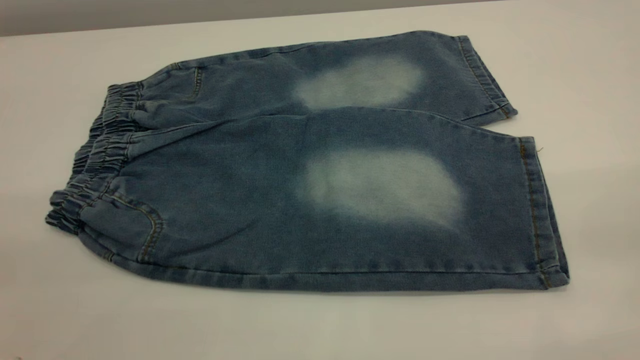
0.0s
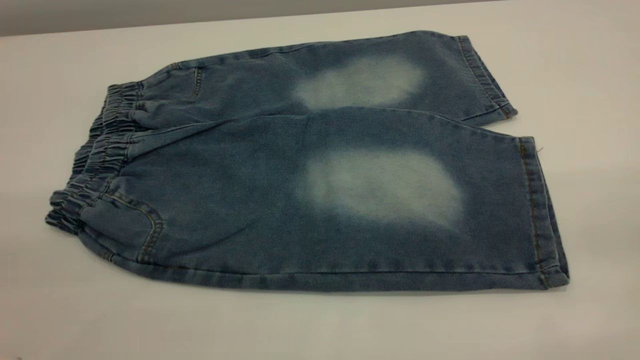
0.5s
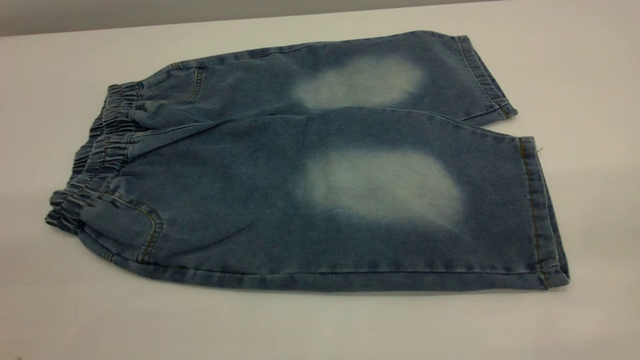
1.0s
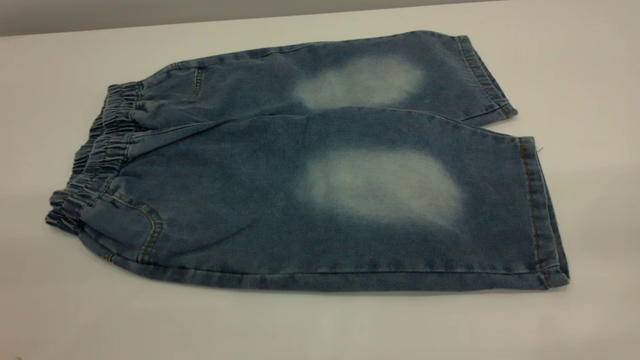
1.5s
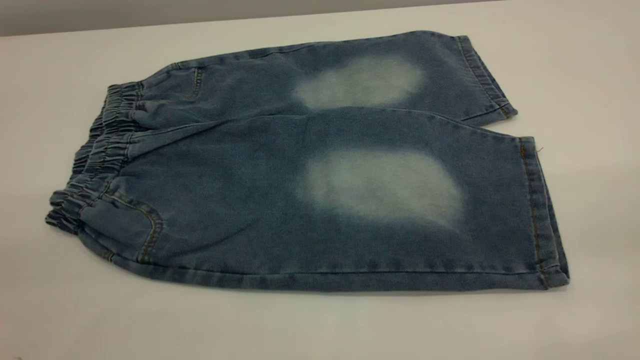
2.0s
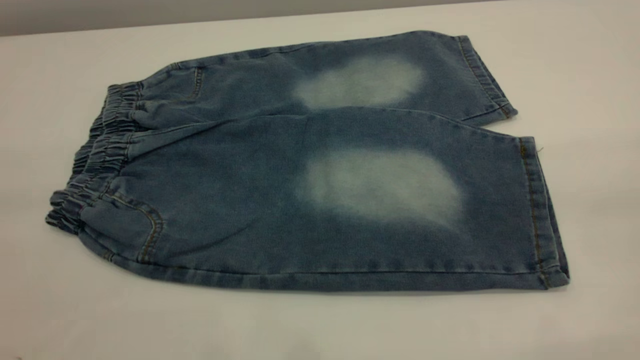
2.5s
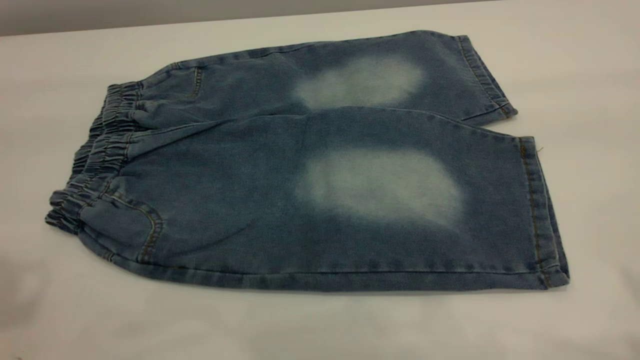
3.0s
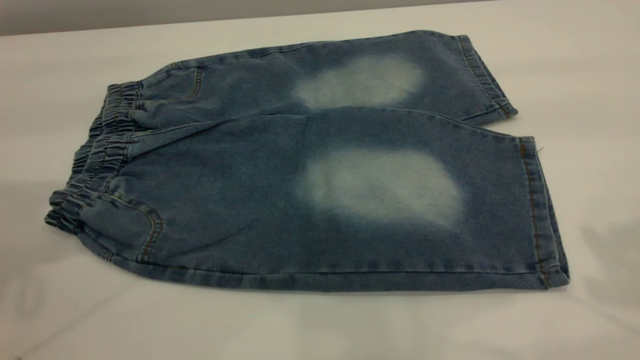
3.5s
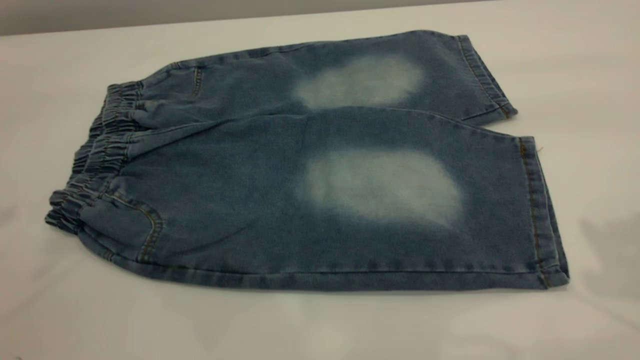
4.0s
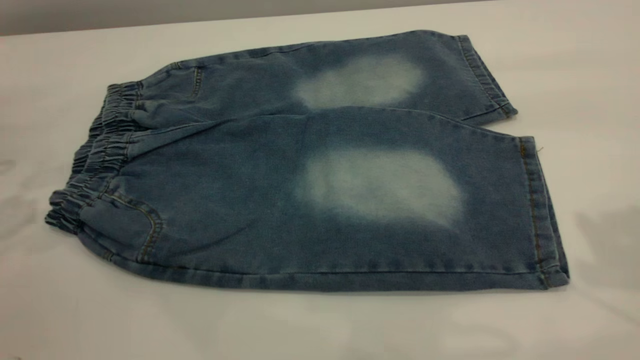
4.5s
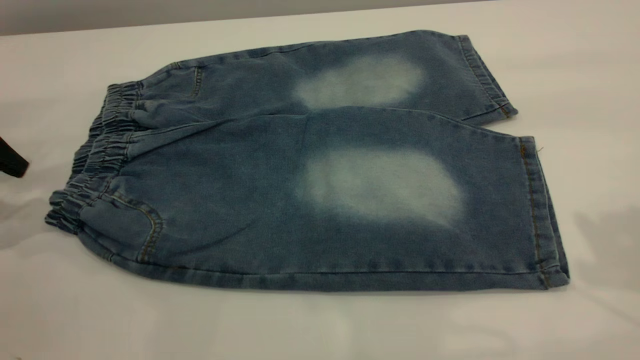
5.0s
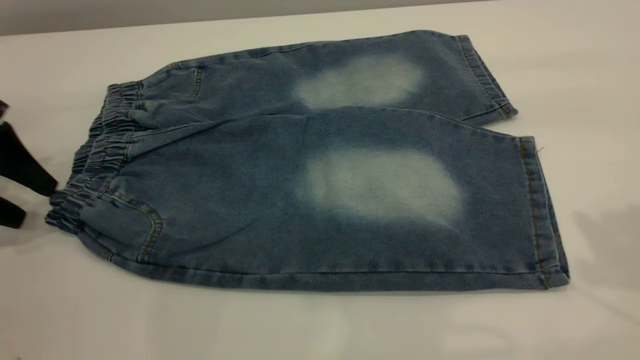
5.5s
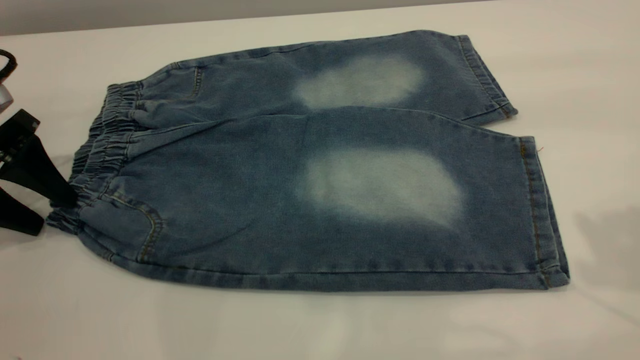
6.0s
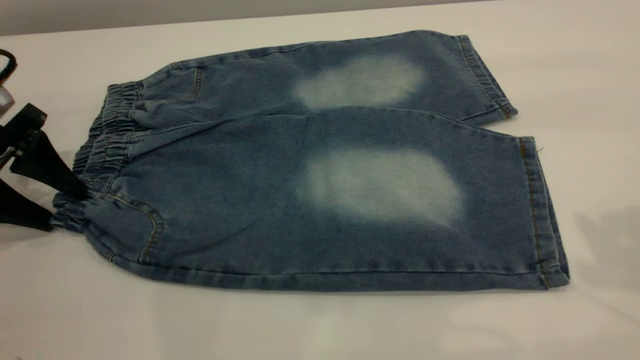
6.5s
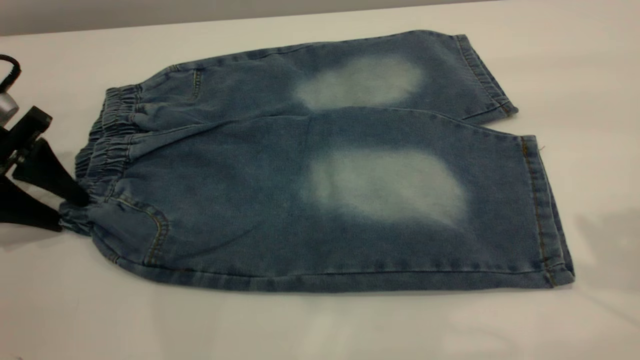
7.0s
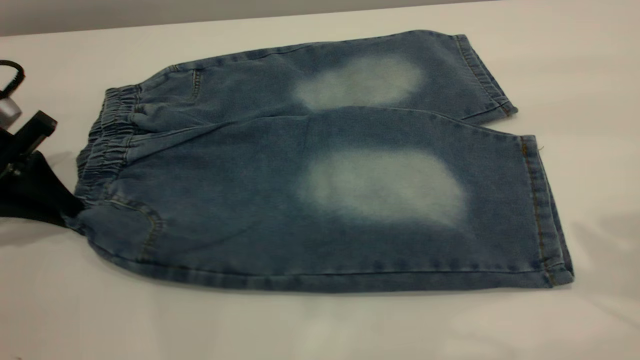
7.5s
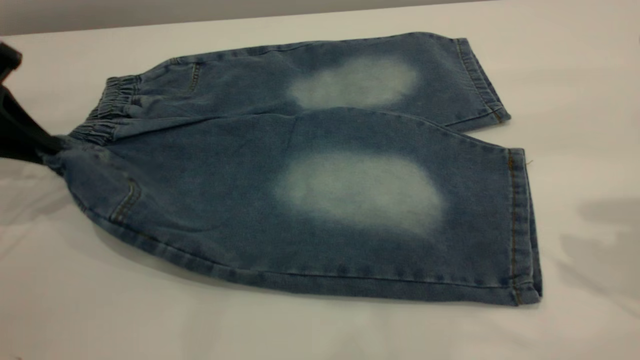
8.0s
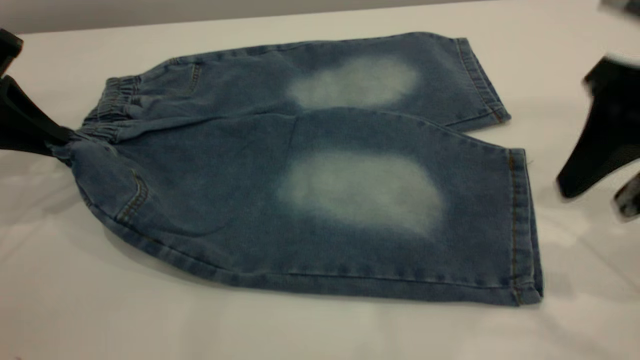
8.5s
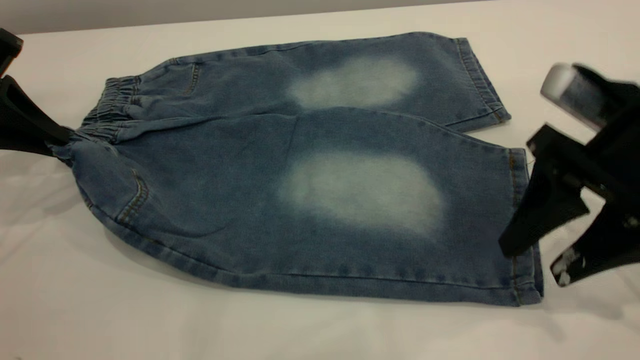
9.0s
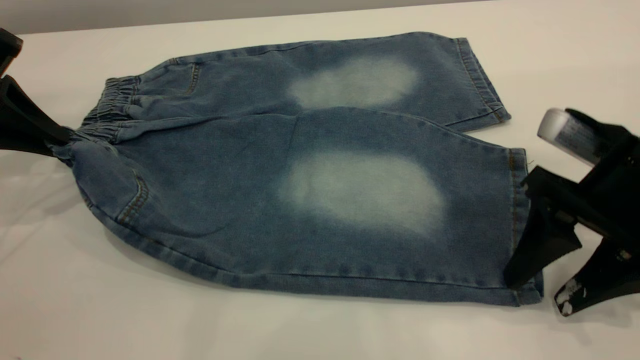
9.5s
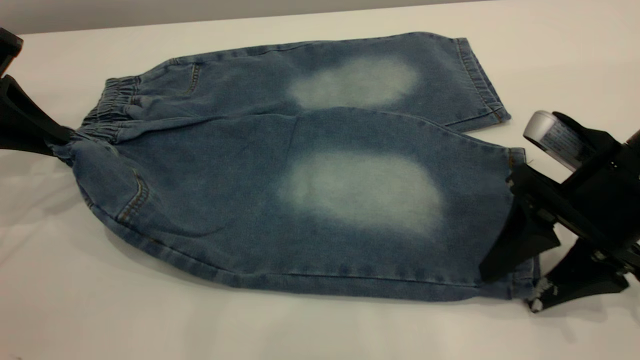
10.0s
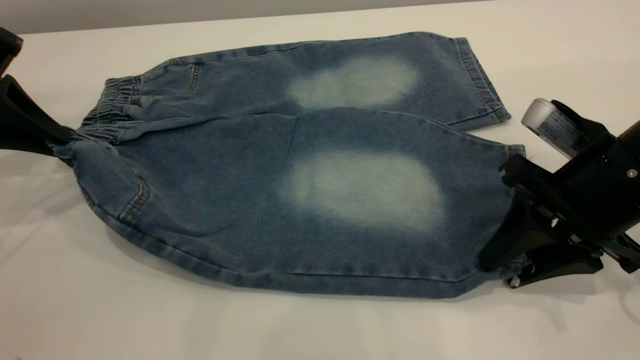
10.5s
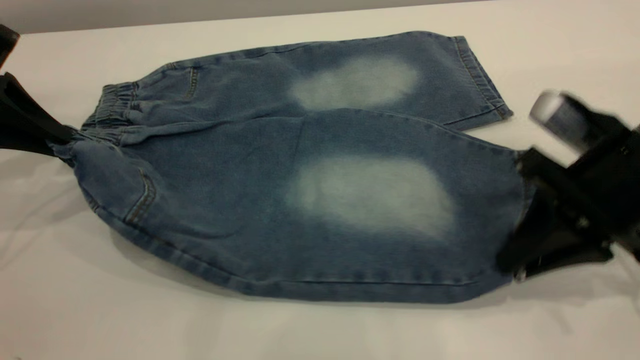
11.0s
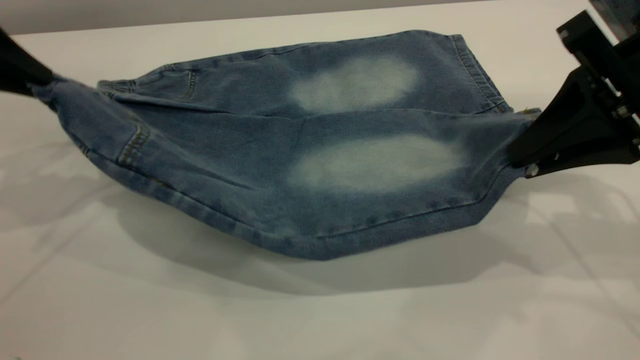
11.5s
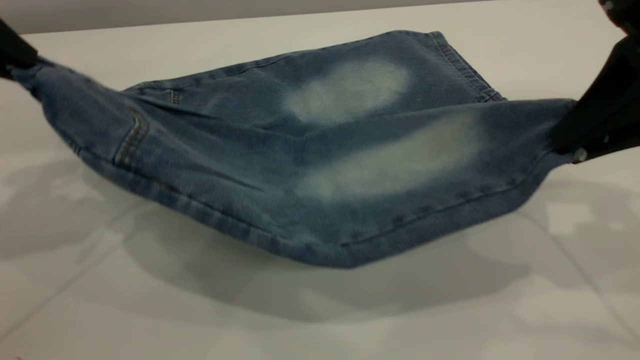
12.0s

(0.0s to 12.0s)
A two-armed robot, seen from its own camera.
0.0s - 2.0s: Both grippers stay about where they are.
4.0s - 6.0s: The left gripper is displaced downward by about 20 cm.
6.0s - 8.0s: The left gripper closes.
8.0s - 10.0s: The right gripper travels downward by about 20 cm.
10.0s - 12.0s: Both grippers move upward, some 10 cm. The right gripper closes up.

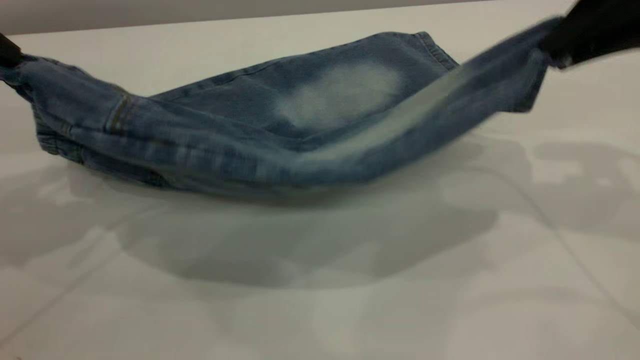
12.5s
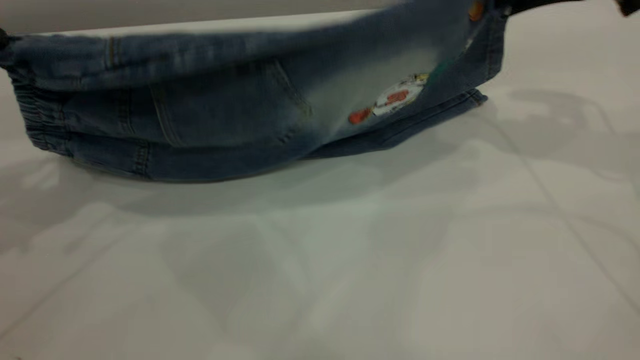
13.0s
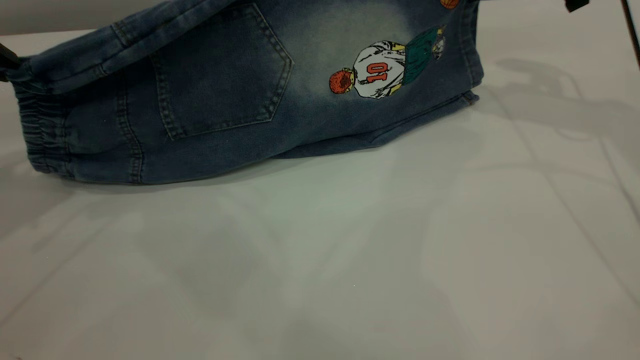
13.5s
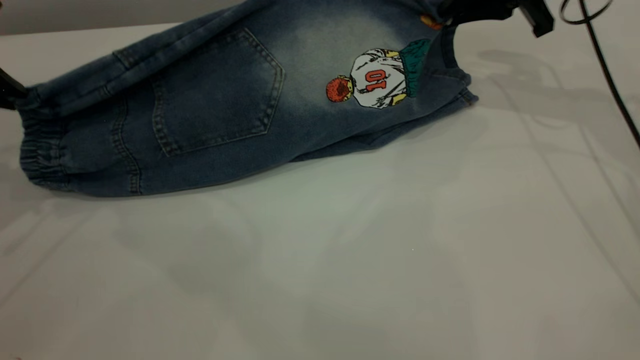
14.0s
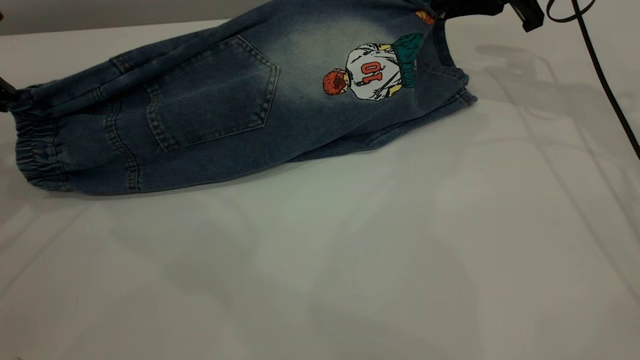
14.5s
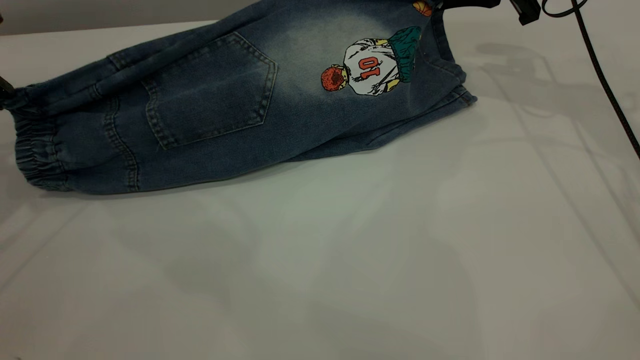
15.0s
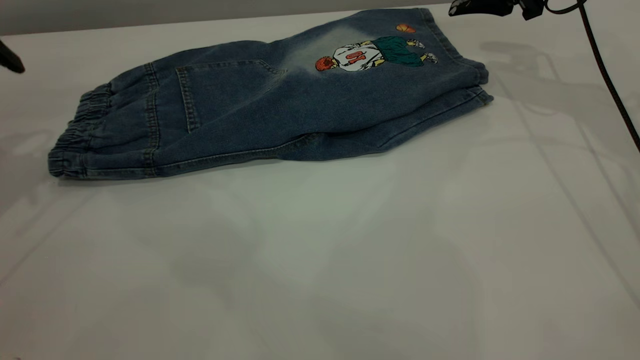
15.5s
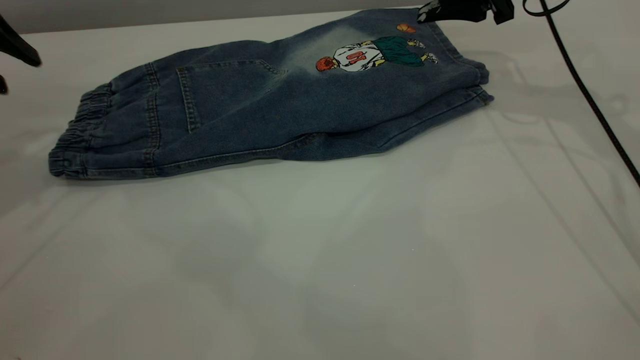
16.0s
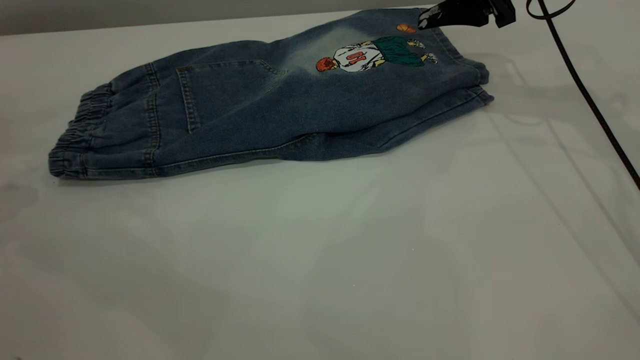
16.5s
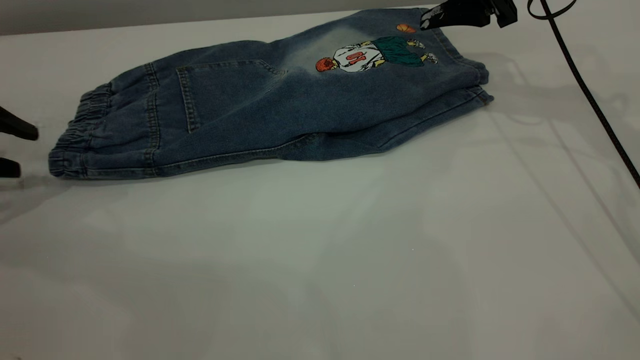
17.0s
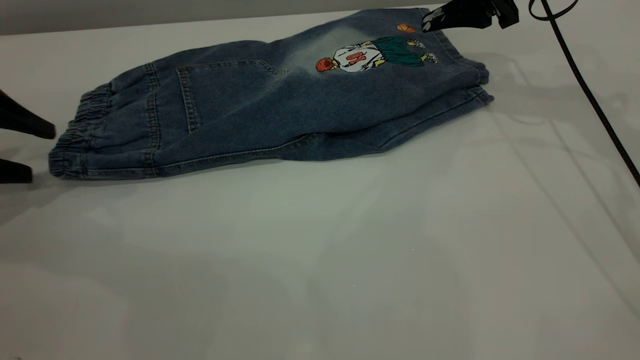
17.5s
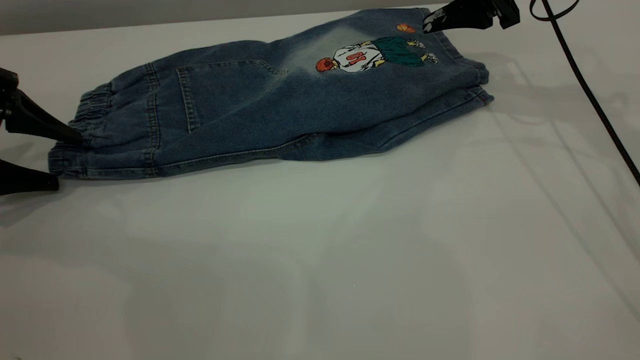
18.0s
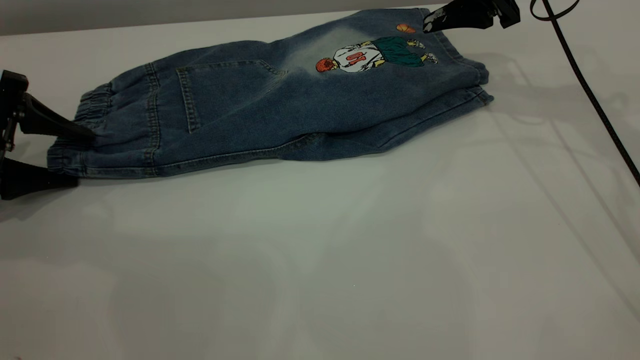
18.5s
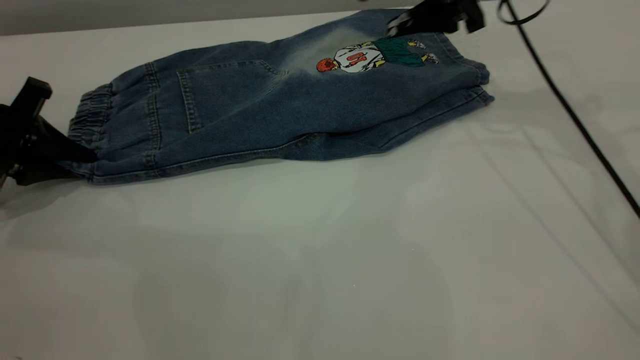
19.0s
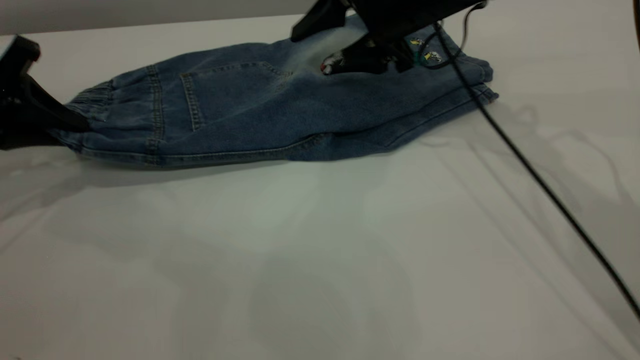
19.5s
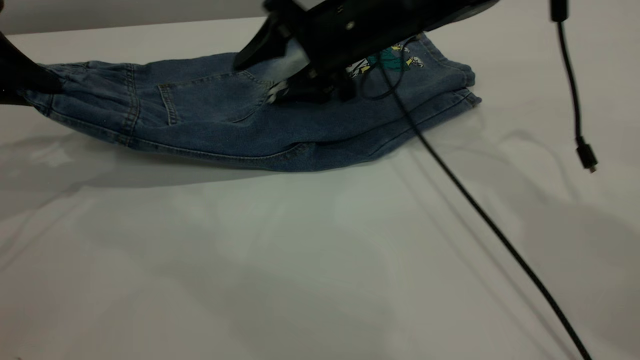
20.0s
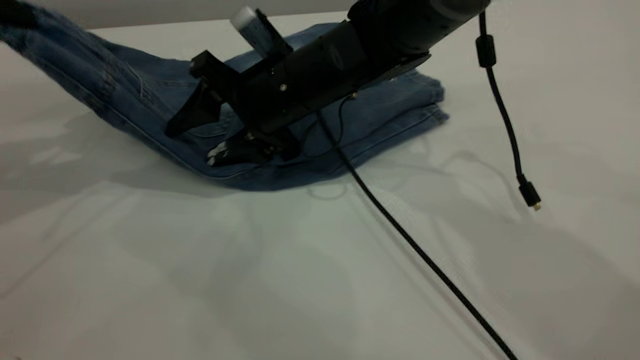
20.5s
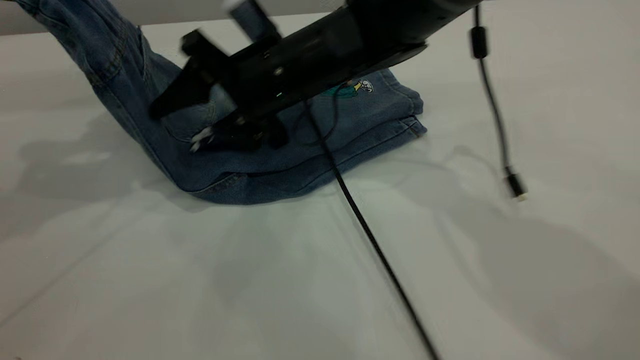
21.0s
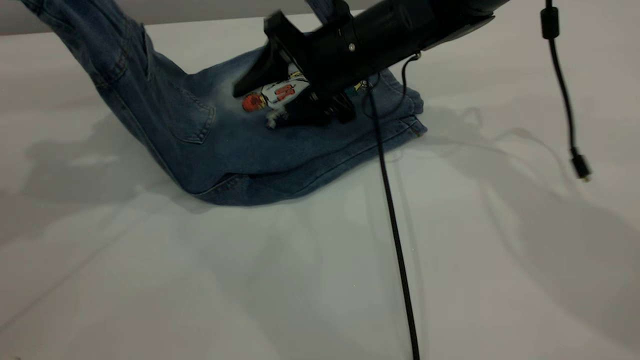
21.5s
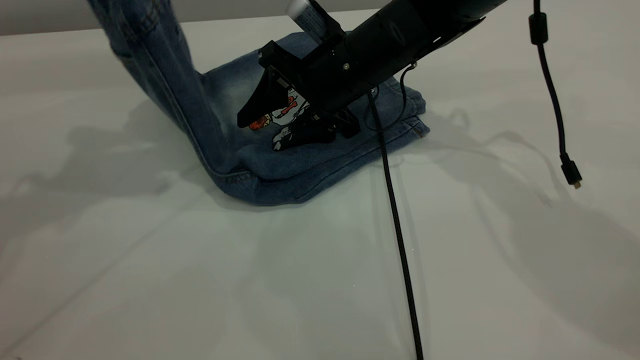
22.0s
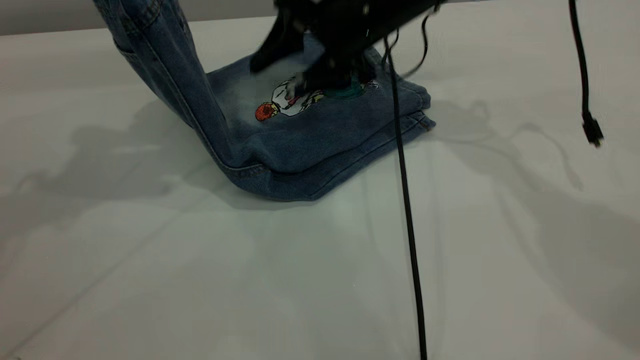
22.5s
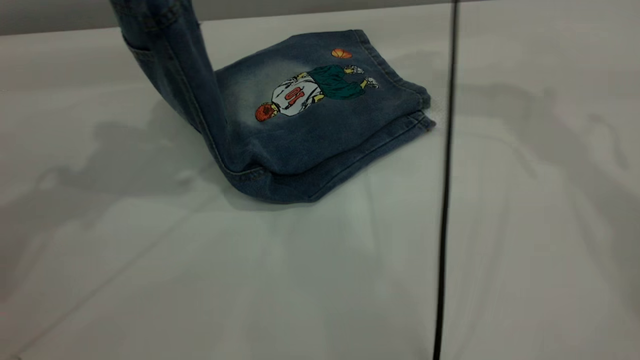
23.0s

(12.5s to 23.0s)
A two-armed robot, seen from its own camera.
Step, 12.5s - 16.0s: Fold the bottom of the pants upward.
12.5s - 14.5s: The right gripper travels forward and downward by about 20 cm. The left gripper goes roughly 10 cm downward.
14.5s - 16.5s: The right gripper opens; the left gripper travels to the left by roughly 5 cm, and opens its fingers.
16.5s - 19.0s: The left gripper is displaced downward and to the right by approximately 10 cm, and closes its fingers.
19.0s - 21.0s: The left gripper heads upward, covering approximately 20 cm, while the right gripper heads to the left, covering about 20 cm.
21.0s - 23.0s: The left gripper travels to the right by some 5 cm; the right gripper goes approximately 25 cm to the right, upward and forward.
